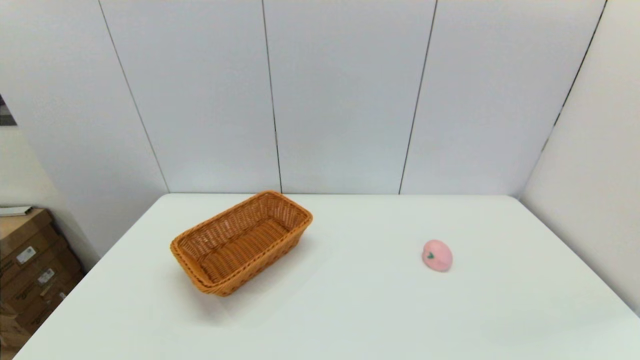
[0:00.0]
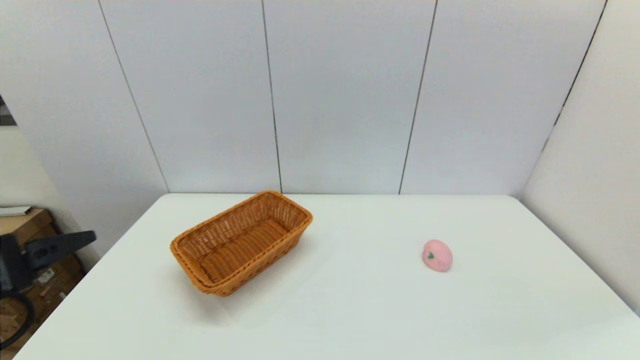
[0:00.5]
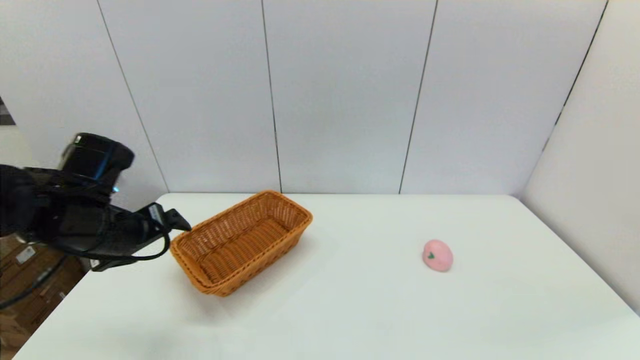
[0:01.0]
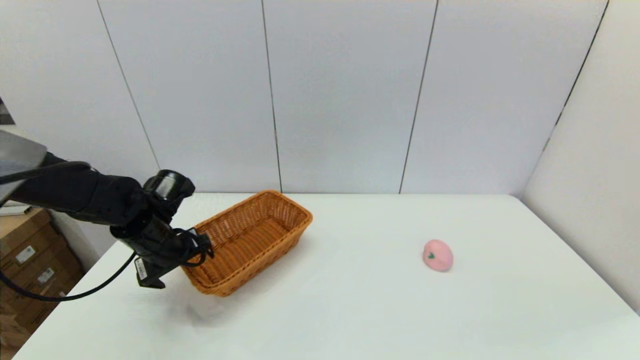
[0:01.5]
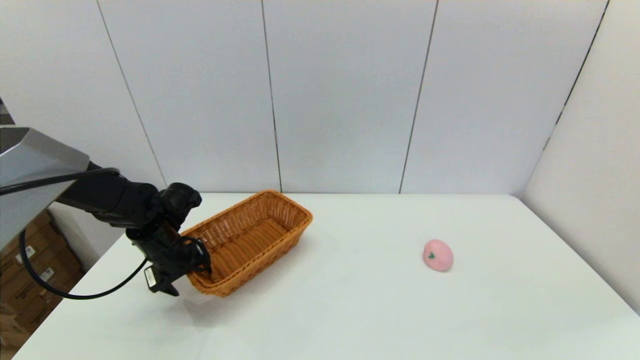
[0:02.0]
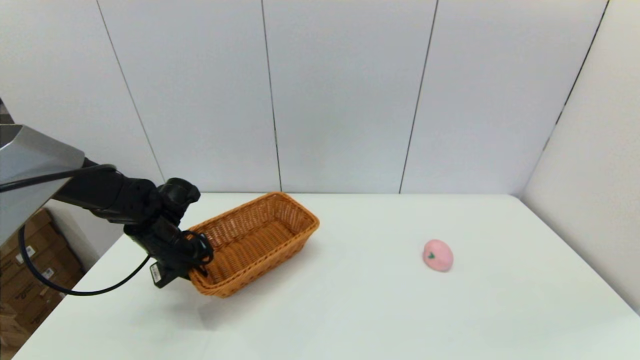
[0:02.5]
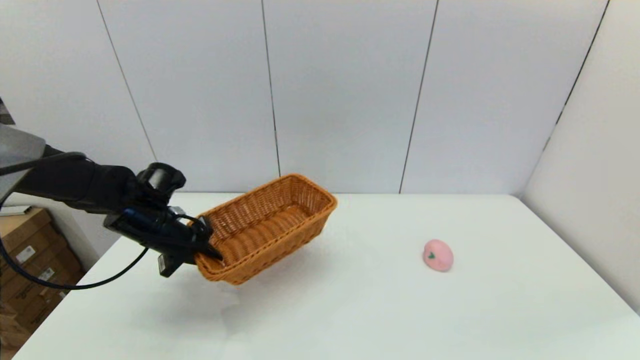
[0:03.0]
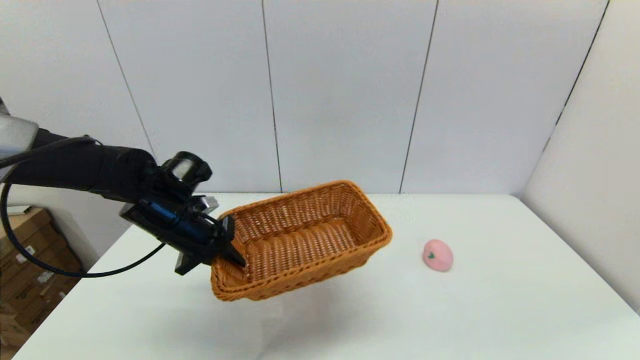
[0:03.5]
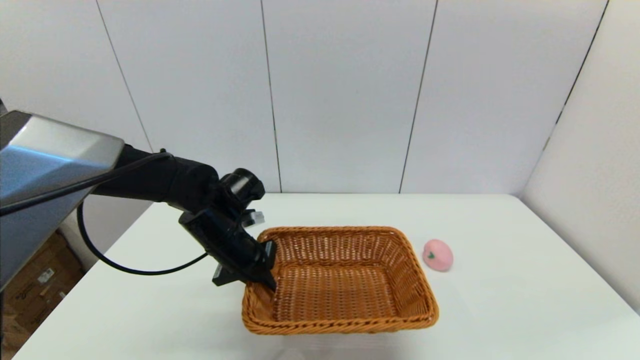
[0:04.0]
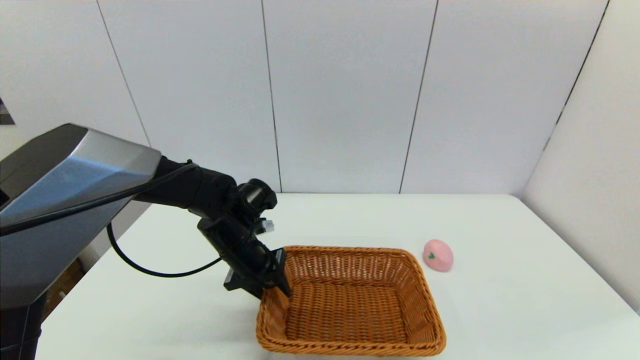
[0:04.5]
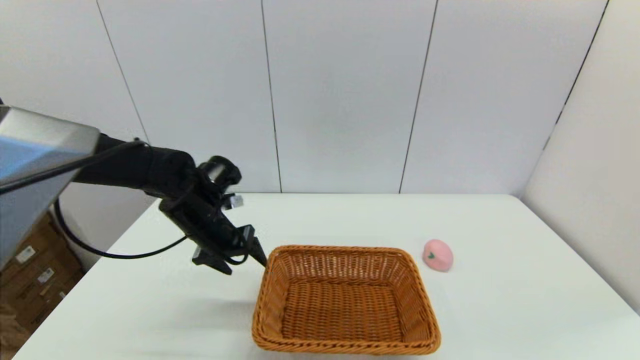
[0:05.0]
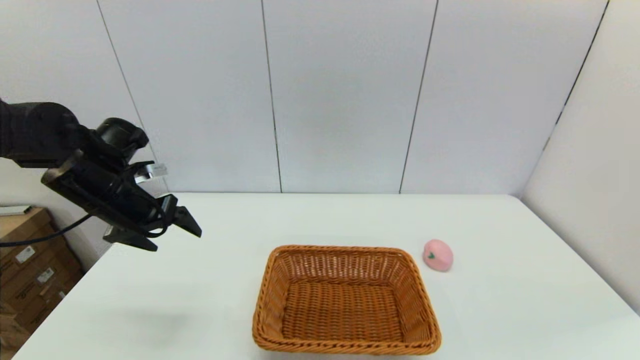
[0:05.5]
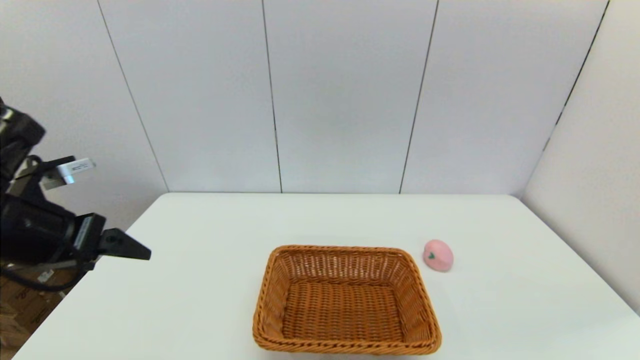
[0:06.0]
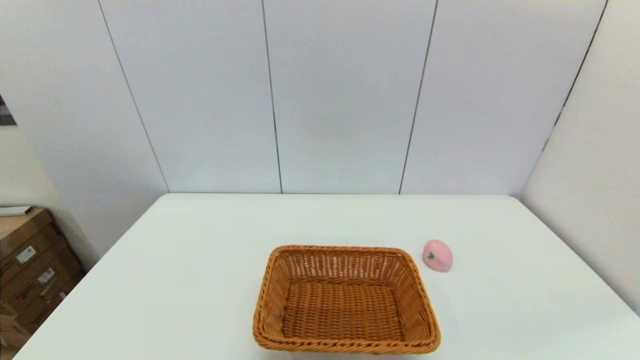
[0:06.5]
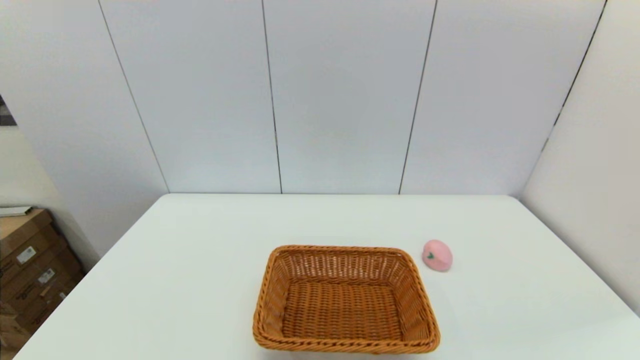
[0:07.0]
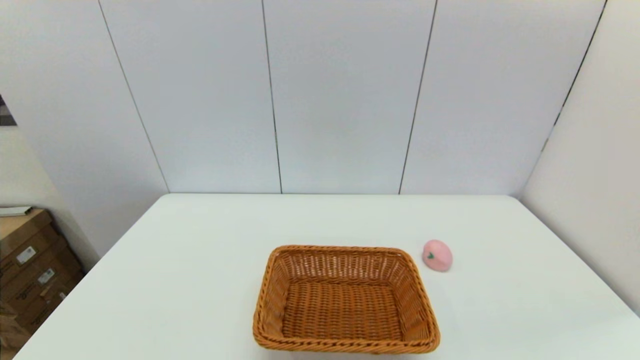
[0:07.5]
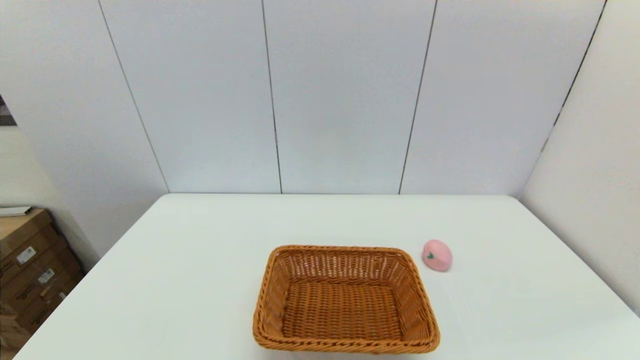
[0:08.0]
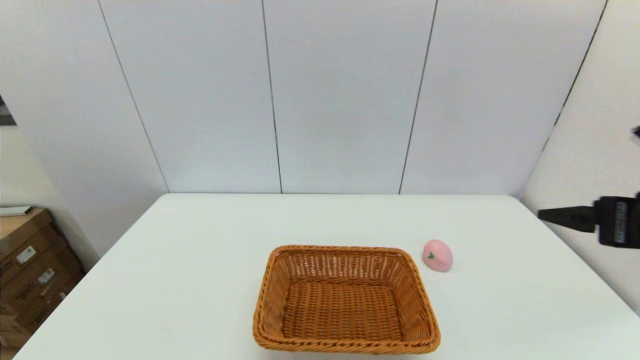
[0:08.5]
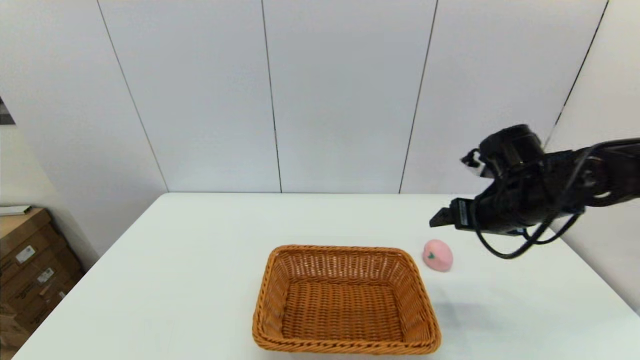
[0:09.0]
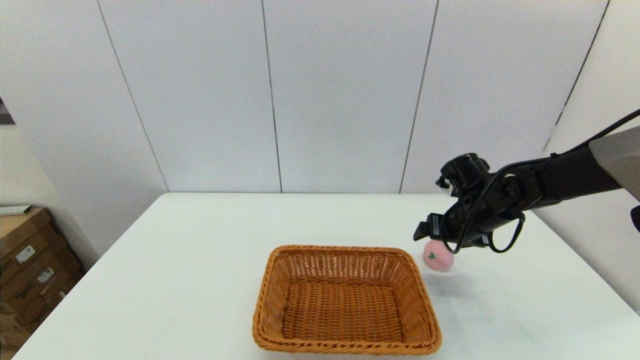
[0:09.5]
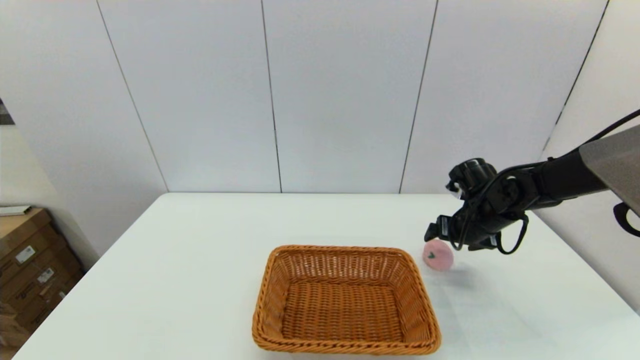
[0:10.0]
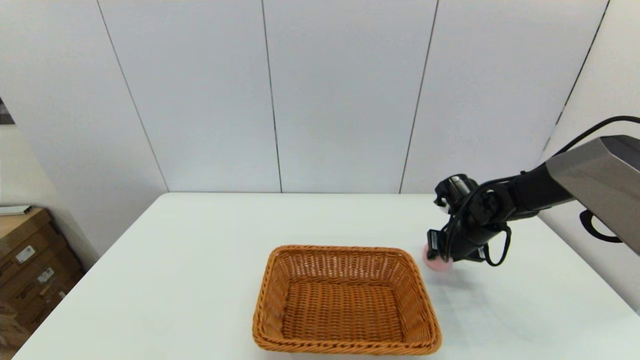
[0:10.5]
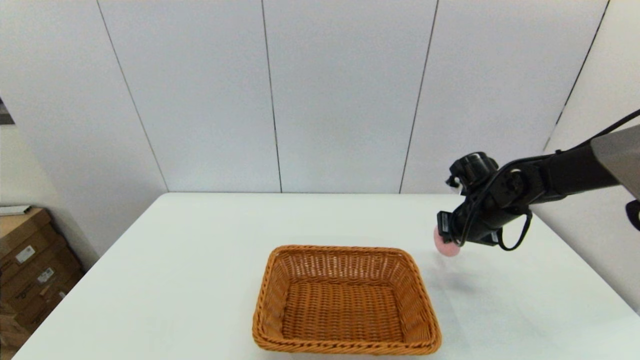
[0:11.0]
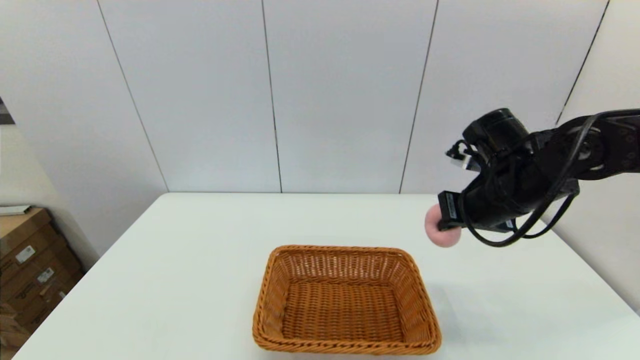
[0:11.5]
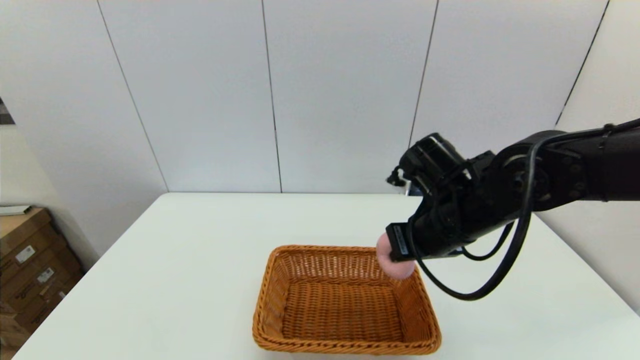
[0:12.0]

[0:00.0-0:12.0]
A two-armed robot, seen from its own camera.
Step, 0:00.0 to 0:02.0: Grasp the light basket with the left gripper.
Step, 0:03.0 to 0:04.5: Place the light basket on the middle of the table with the left gripper.
Step, 0:05.0 to 0:10.5: Grasp the peach with the right gripper.
0:00.0 to 0:02.0: The left gripper goes roughly 35 cm forward, and closes its fingers.
0:02.0 to 0:04.0: The left gripper heads to the right, covering about 10 cm, and closes its fingers.
0:04.0 to 0:06.0: The left gripper heads to the left, upward and backward, covering about 25 cm, and opens.
0:06.0 to 0:08.0: The left gripper heads backward and downward, covering about 30 cm.
0:08.0 to 0:10.0: The right gripper heads forward, covering about 40 cm.
0:10.0 to 0:12.0: The right gripper is displaced to the left, backward and upward by about 20 cm, and closes its fingers.

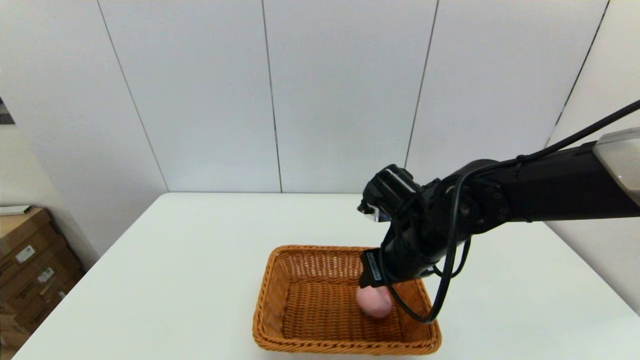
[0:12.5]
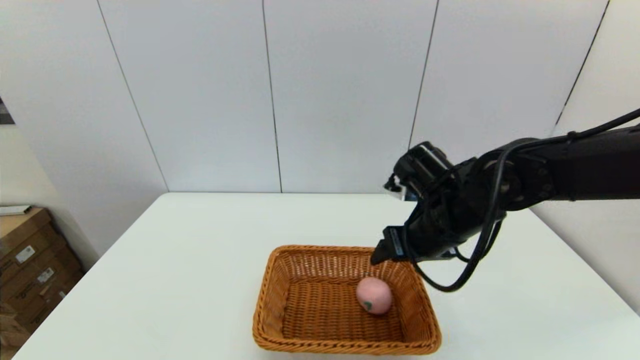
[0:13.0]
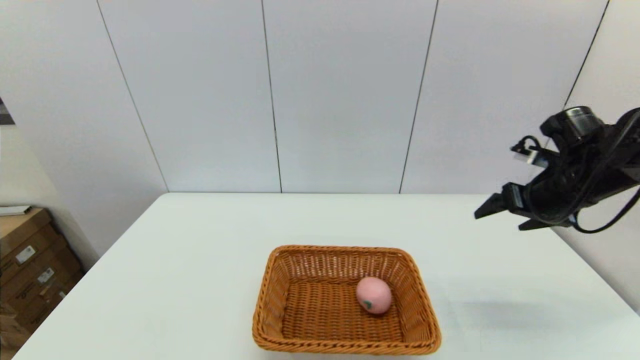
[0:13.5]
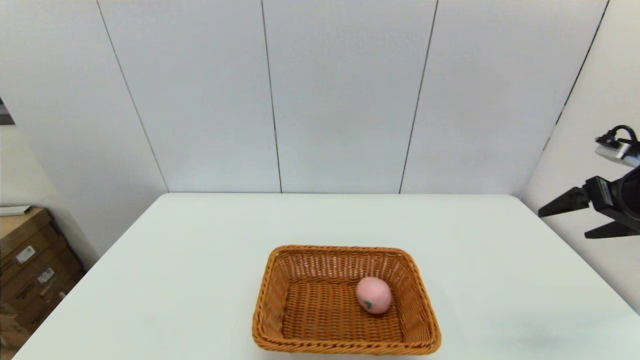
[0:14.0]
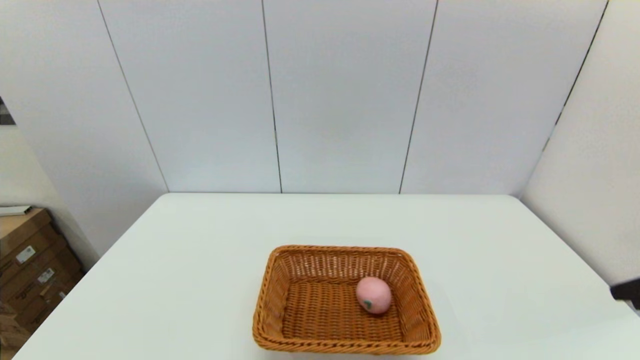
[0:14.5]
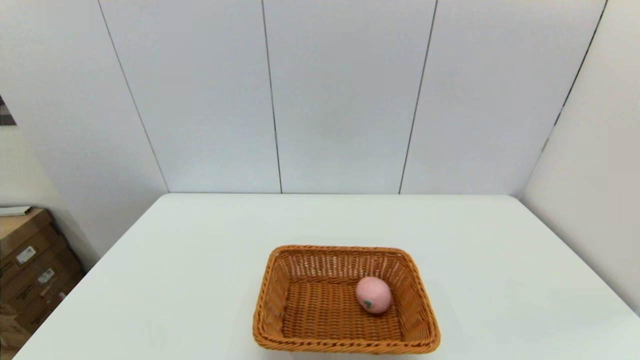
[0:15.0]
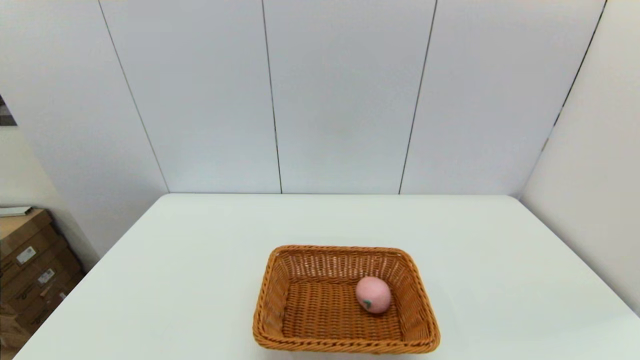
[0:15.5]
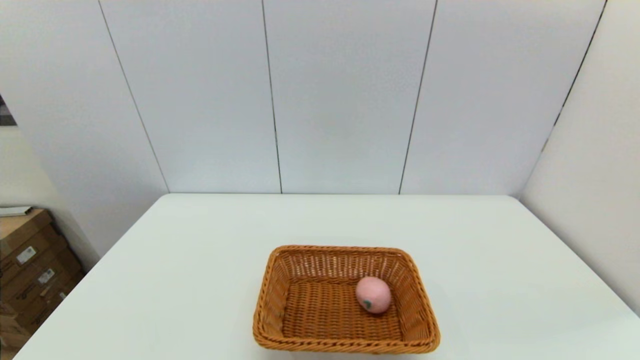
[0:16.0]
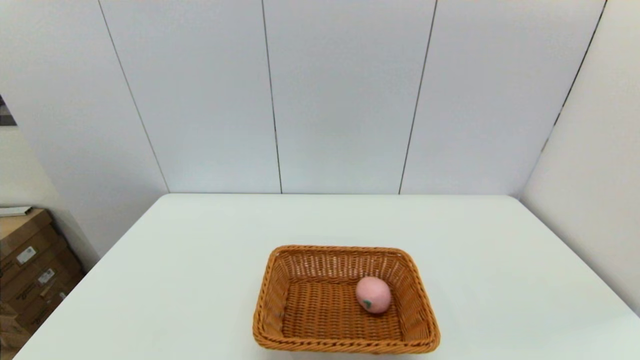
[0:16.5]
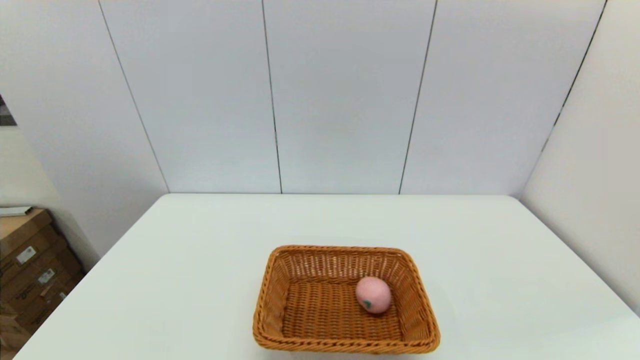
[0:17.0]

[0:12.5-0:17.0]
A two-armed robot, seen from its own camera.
0:12.5 to 0:14.5: The right gripper goes about 35 cm to the right, backward and upward, and opens its fingers.

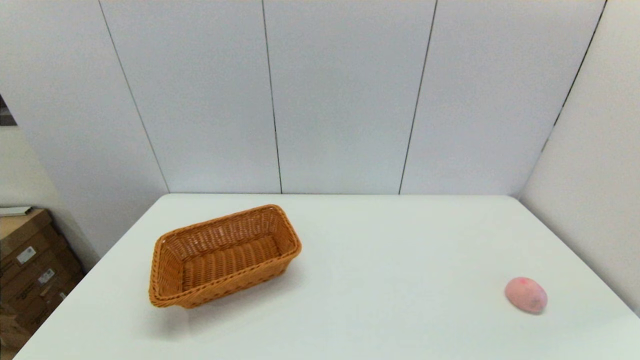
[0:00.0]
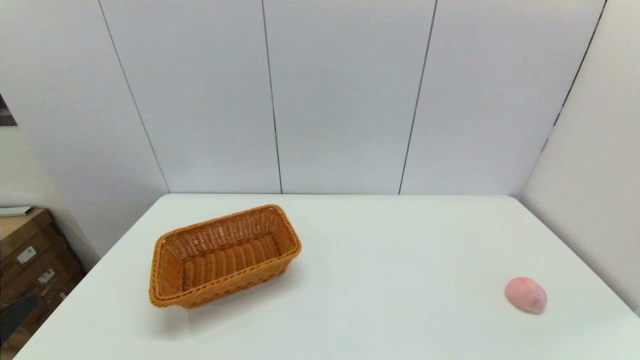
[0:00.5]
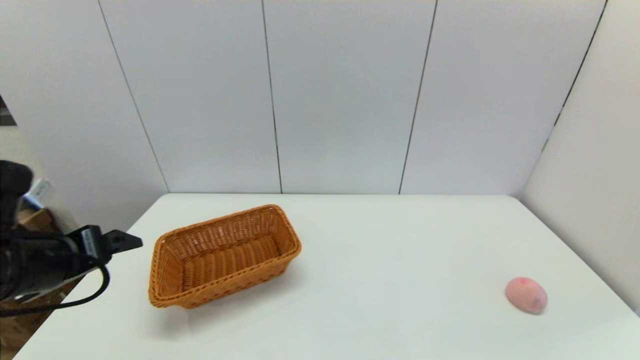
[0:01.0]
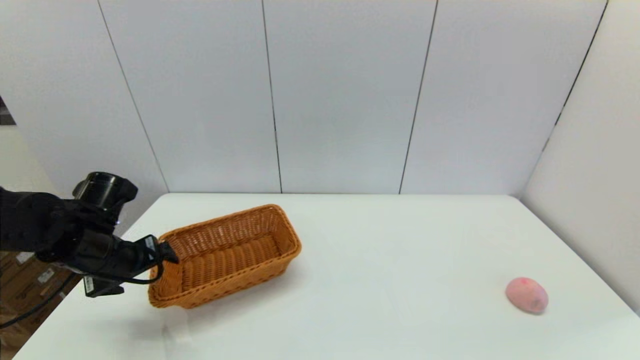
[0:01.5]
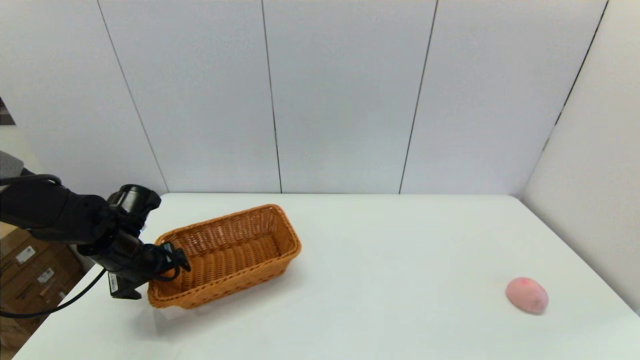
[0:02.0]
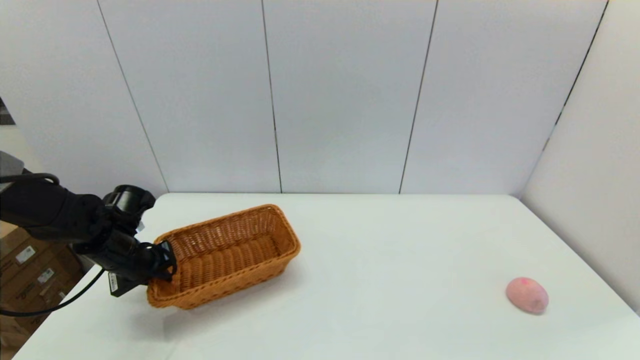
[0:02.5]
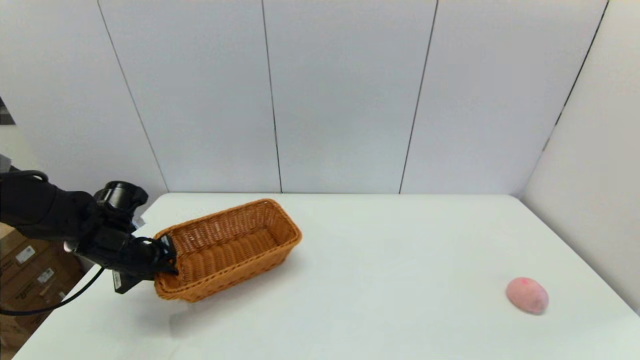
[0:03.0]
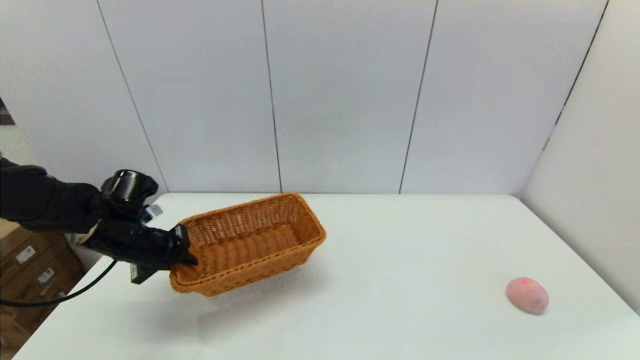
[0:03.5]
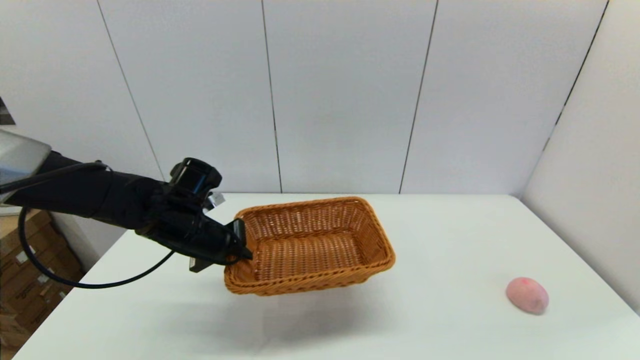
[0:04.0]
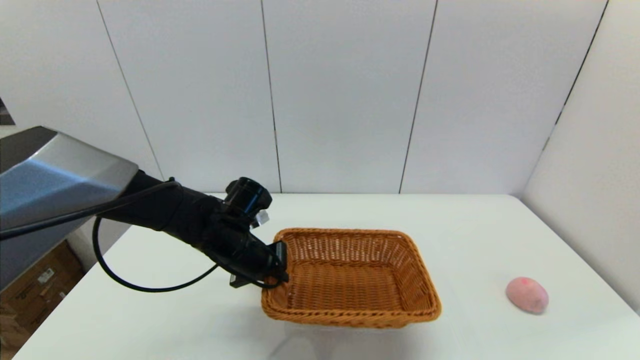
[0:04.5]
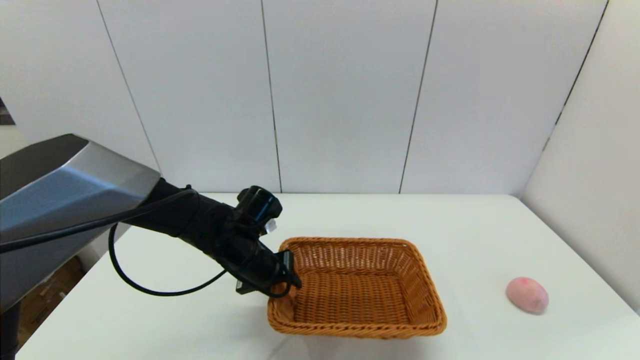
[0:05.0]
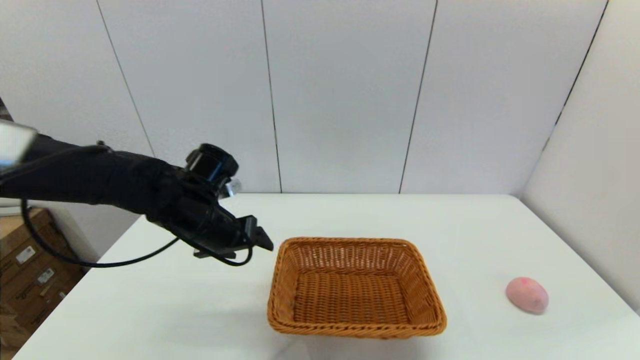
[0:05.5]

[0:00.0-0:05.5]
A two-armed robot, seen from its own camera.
Step, 0:00.0 to 0:02.5: Grasp the light basket with the left gripper.
0:00.0 to 0:02.0: The left gripper is displaced forward by roughly 35 cm.
0:02.0 to 0:03.5: The left gripper closes its fingers.
0:03.5 to 0:05.5: The left gripper goes some 10 cm to the right and upward, and opens.
